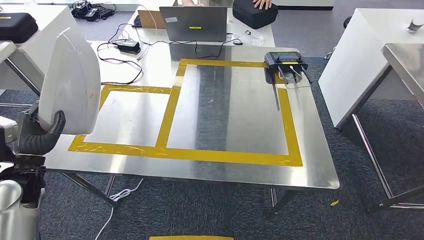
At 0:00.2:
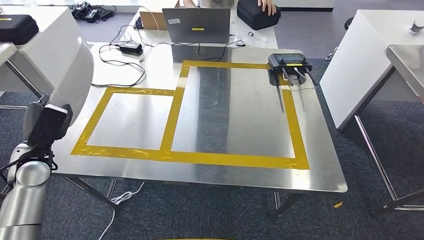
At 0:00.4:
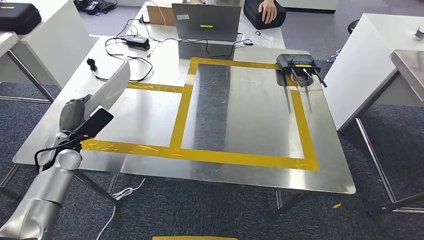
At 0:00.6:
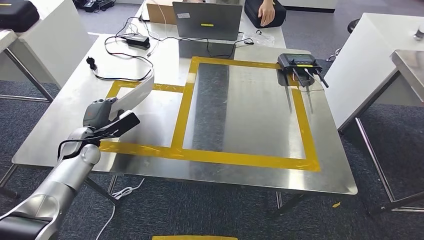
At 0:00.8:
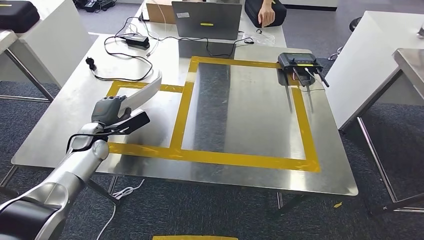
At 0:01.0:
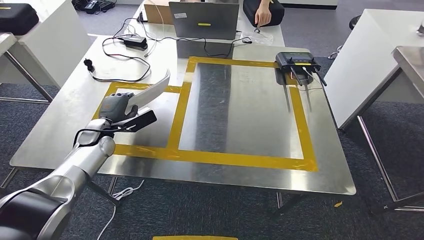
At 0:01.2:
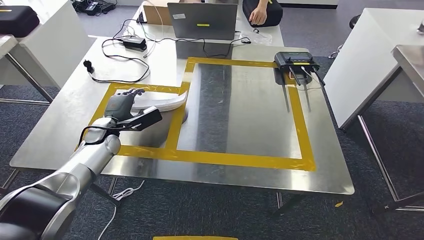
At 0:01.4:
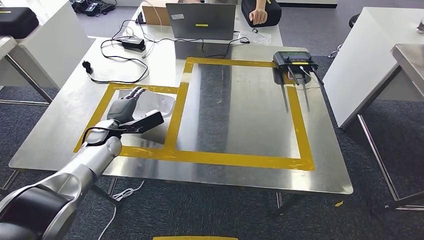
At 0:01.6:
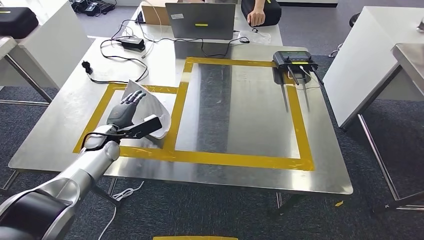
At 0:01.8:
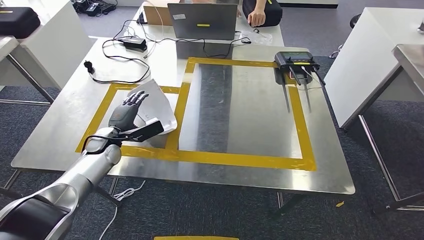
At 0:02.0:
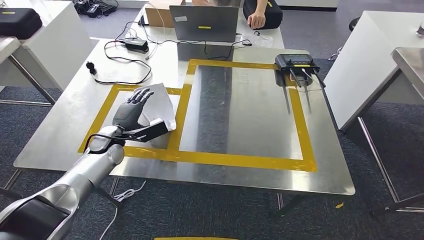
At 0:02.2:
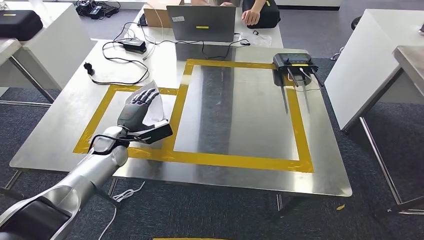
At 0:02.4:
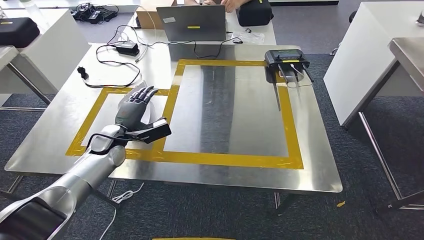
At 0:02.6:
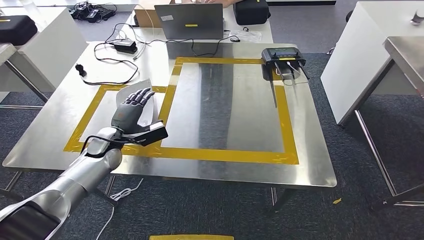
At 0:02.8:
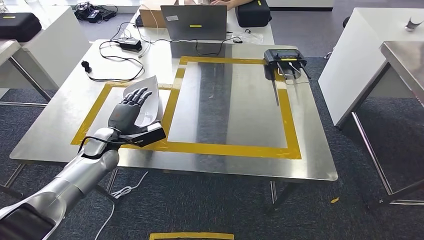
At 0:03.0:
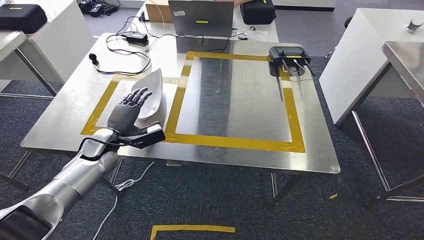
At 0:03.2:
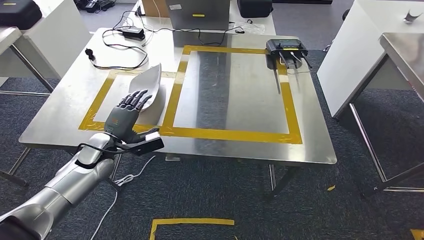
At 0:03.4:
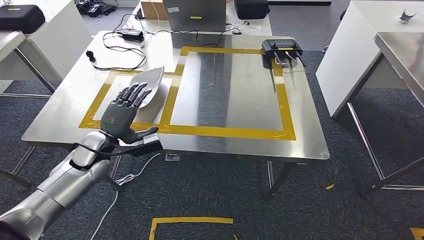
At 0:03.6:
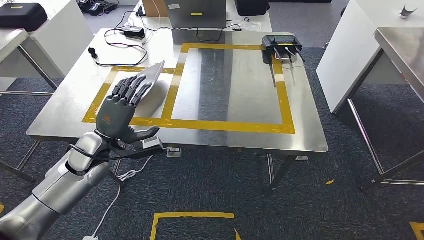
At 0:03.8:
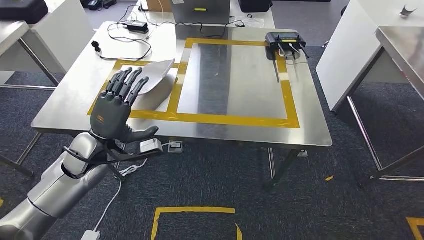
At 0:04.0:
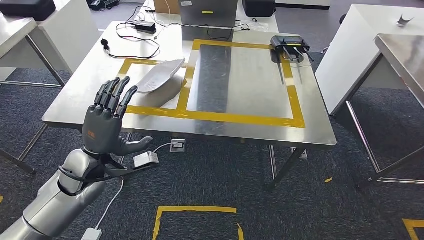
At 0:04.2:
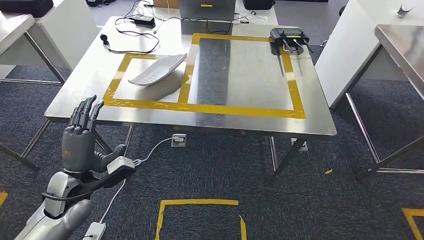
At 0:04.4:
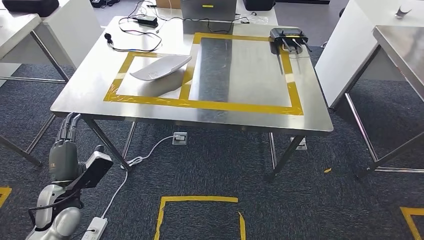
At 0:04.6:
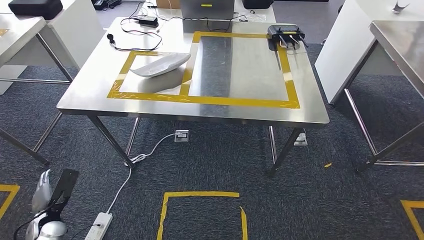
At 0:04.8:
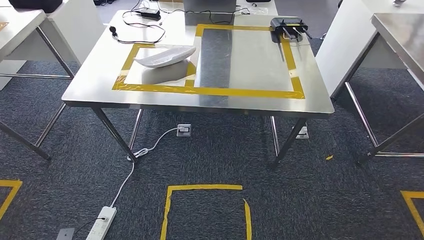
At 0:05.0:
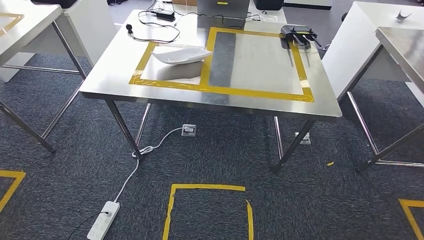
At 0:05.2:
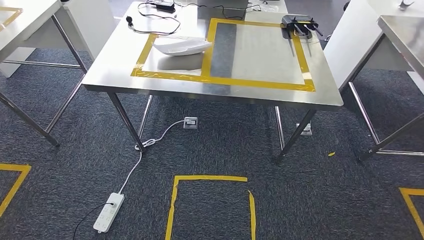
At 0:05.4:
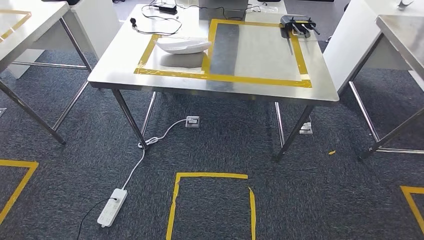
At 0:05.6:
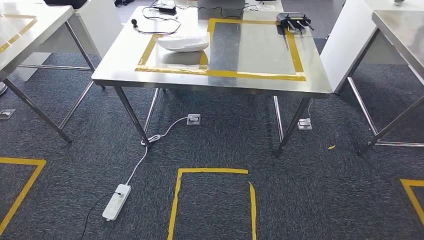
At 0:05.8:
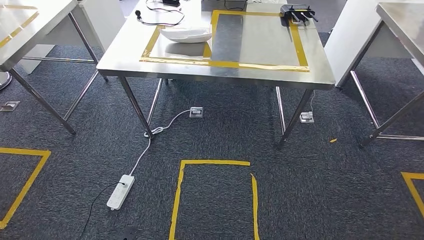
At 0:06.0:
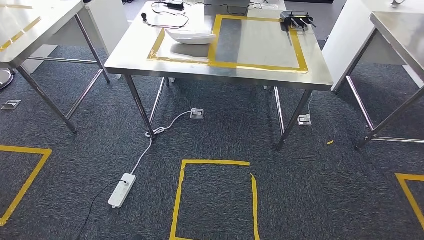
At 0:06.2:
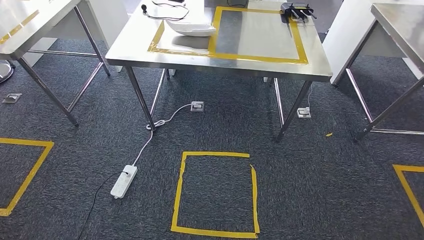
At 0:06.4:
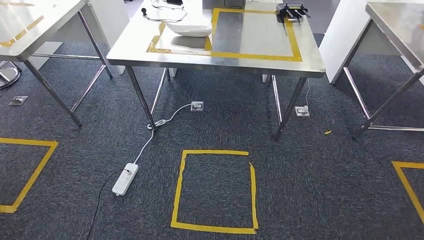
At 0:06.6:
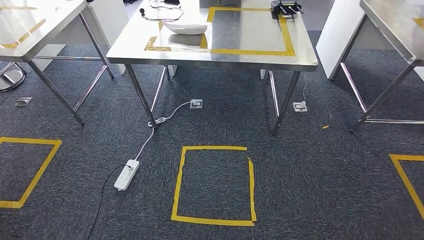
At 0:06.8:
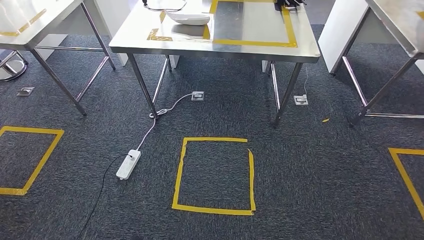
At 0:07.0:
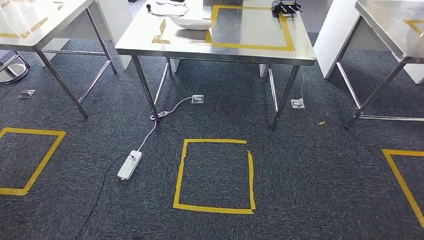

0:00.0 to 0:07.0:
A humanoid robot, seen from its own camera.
Step, 0:00.8 to 0:03.4: Insert the small component into the corresponding slot on the workbench.
Step, 0:04.4 to 0:07.0: Return to the initial position at the workbench.
